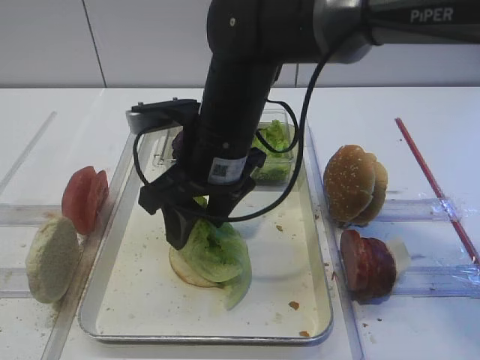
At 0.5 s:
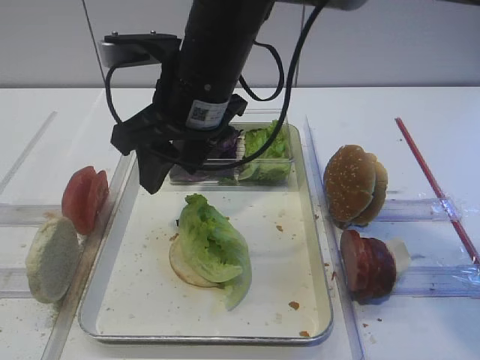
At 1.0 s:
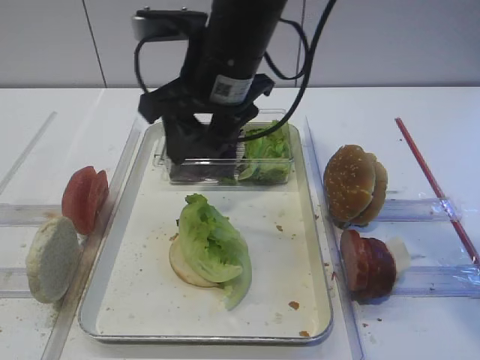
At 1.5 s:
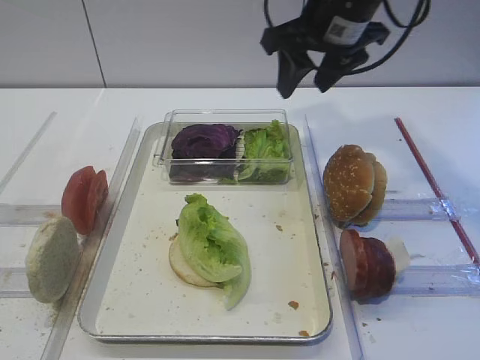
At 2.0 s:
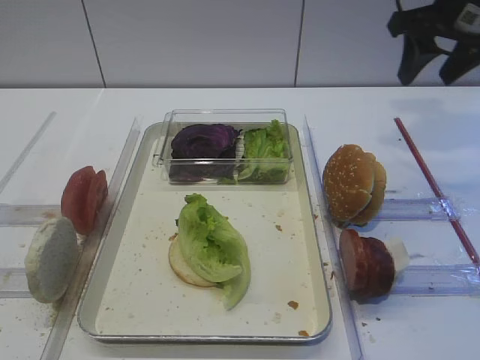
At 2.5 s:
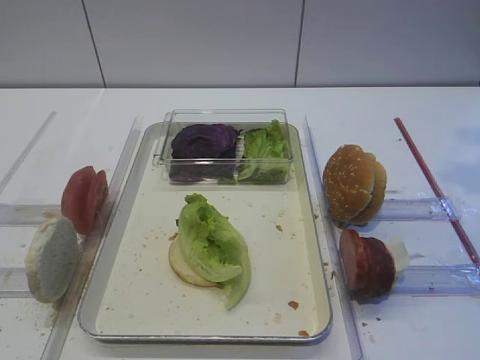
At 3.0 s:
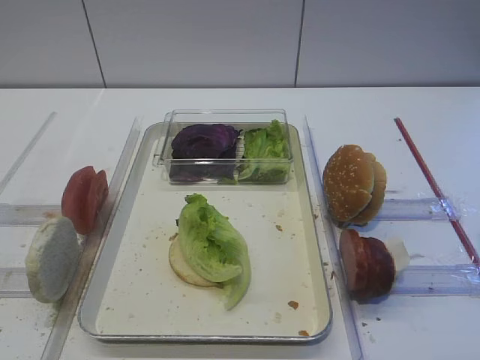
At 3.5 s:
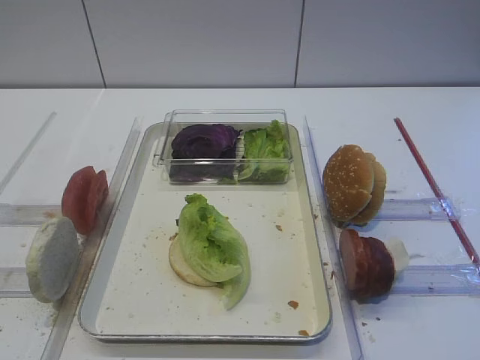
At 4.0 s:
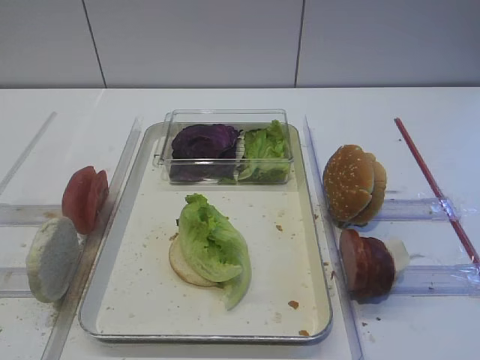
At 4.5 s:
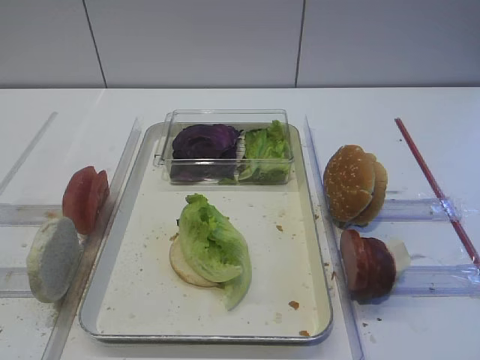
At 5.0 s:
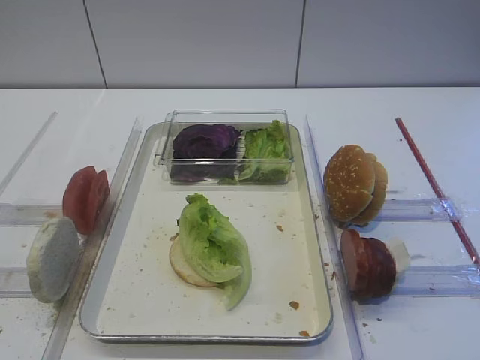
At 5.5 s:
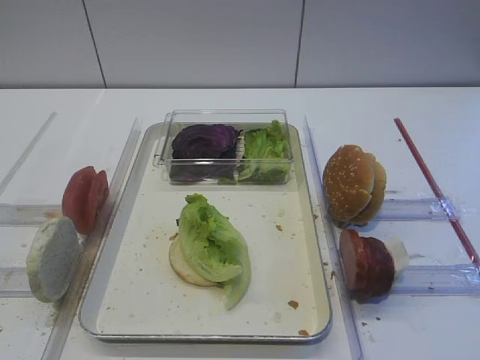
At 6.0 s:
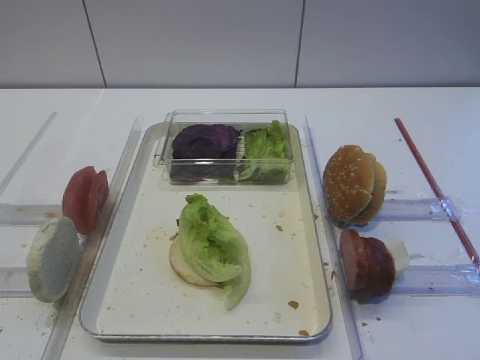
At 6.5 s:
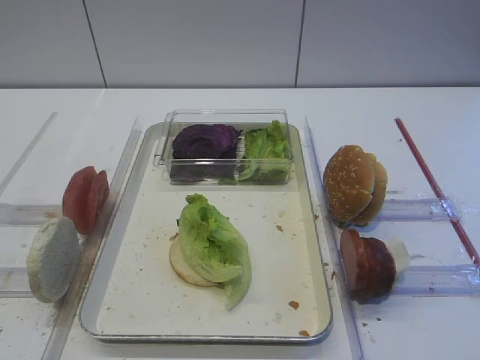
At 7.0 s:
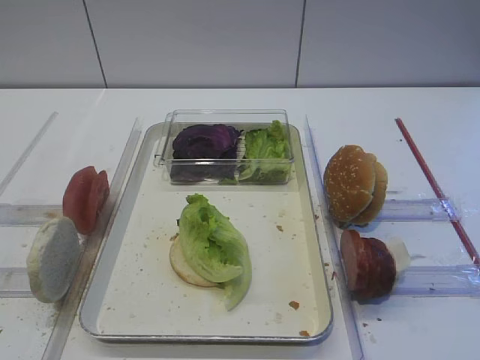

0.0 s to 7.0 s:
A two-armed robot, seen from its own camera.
0.0 to 2.0 s: The right gripper is displaced to the right and forward by roughly 30 cm.
2.0 to 3.5 s: The right gripper travels backward by approximately 35 cm.

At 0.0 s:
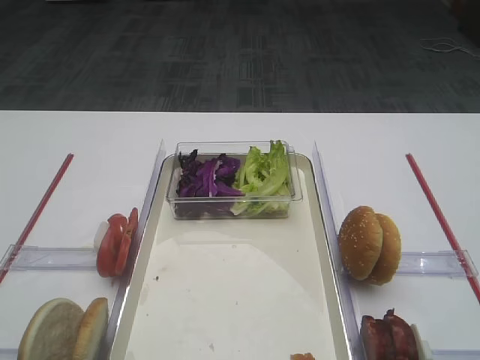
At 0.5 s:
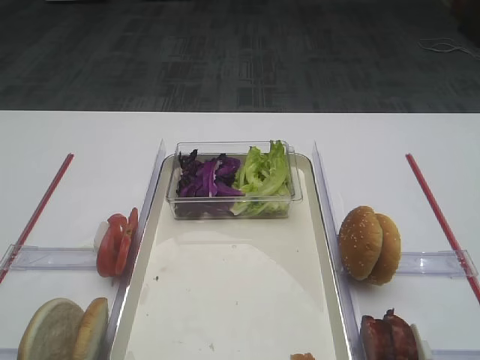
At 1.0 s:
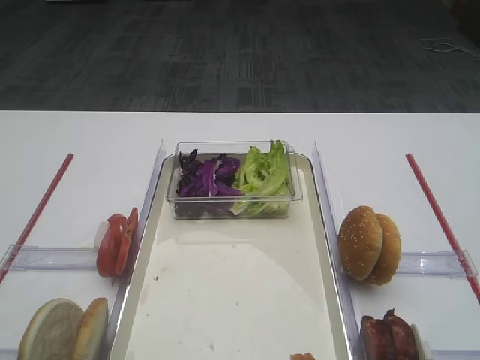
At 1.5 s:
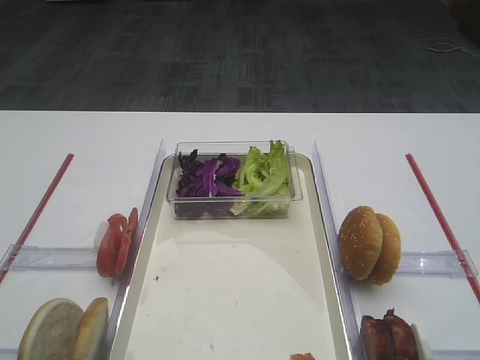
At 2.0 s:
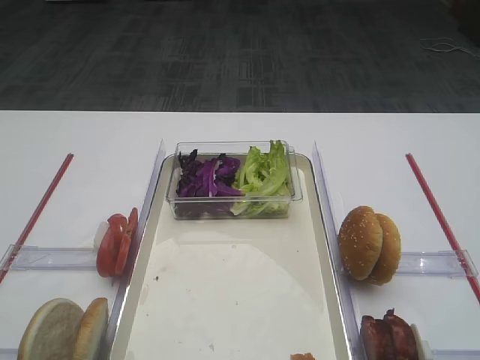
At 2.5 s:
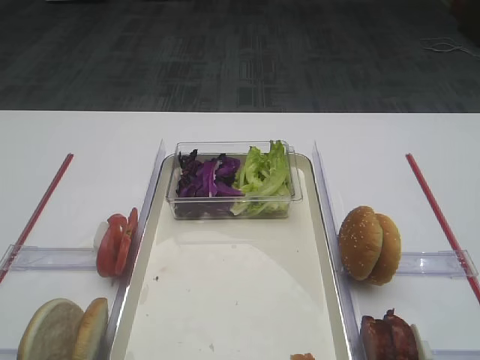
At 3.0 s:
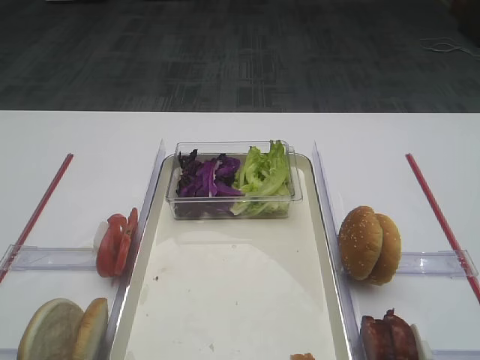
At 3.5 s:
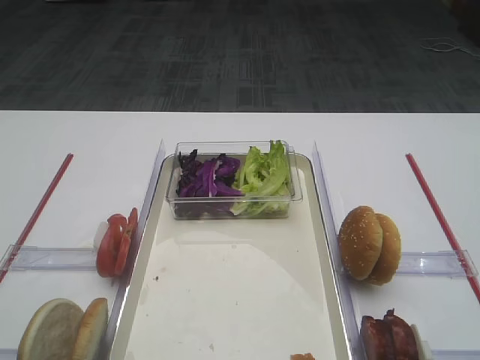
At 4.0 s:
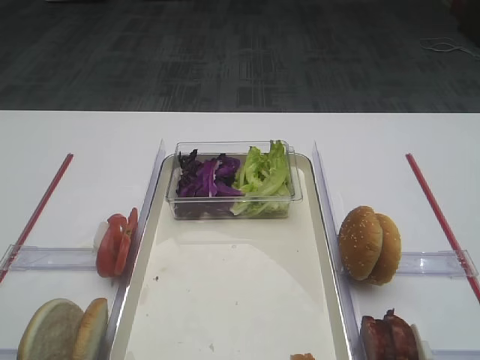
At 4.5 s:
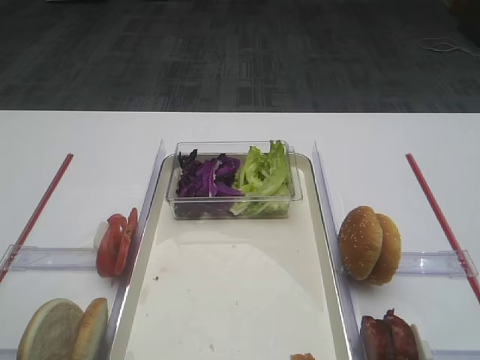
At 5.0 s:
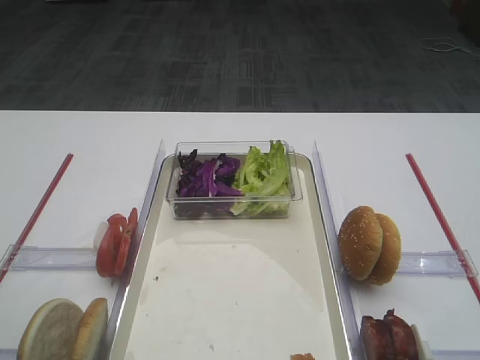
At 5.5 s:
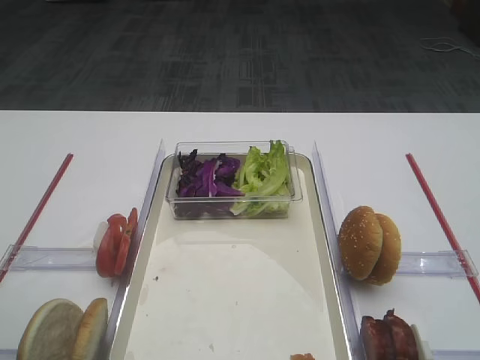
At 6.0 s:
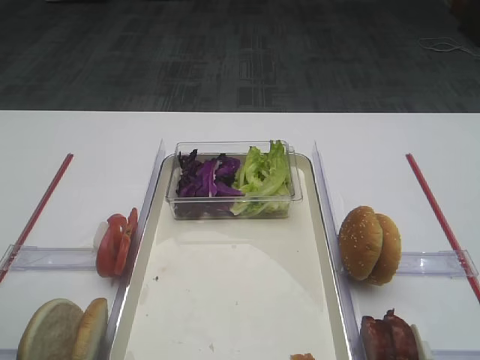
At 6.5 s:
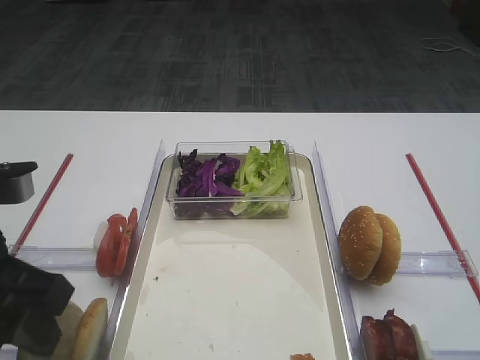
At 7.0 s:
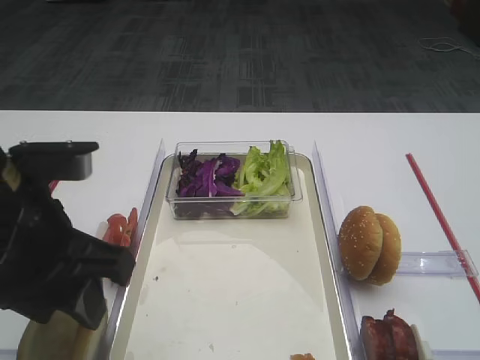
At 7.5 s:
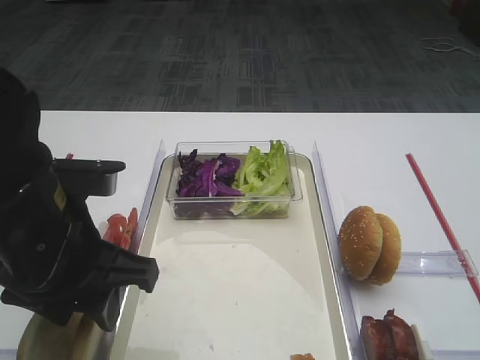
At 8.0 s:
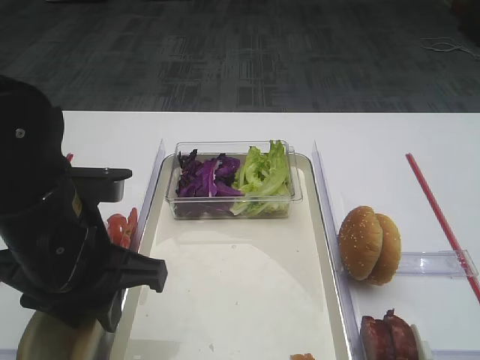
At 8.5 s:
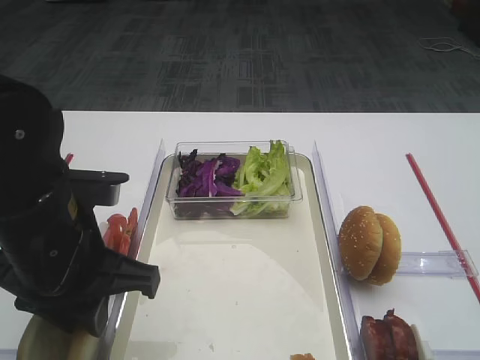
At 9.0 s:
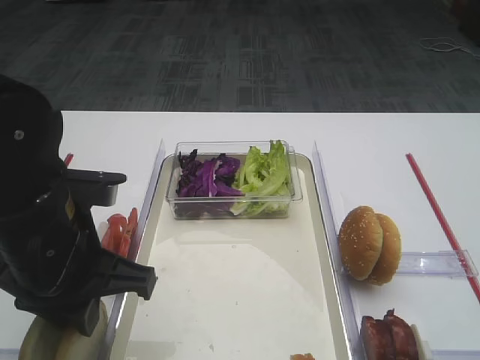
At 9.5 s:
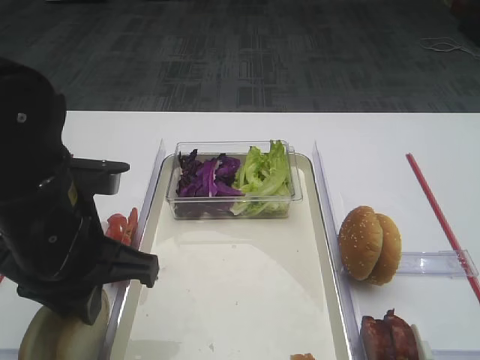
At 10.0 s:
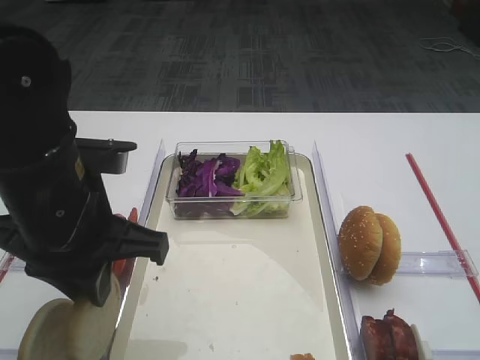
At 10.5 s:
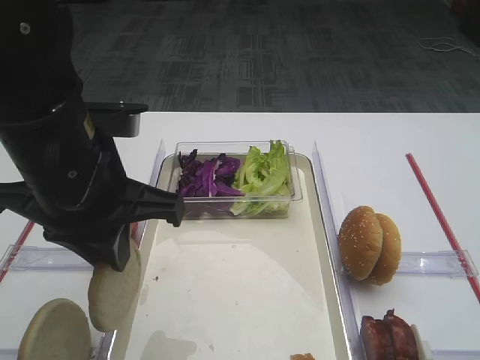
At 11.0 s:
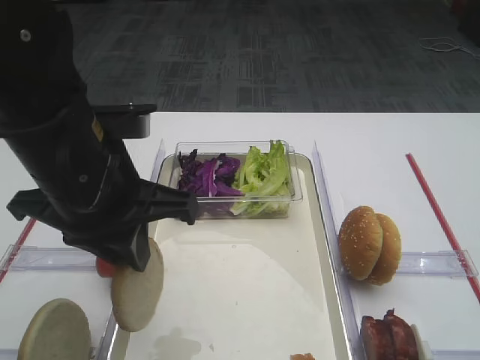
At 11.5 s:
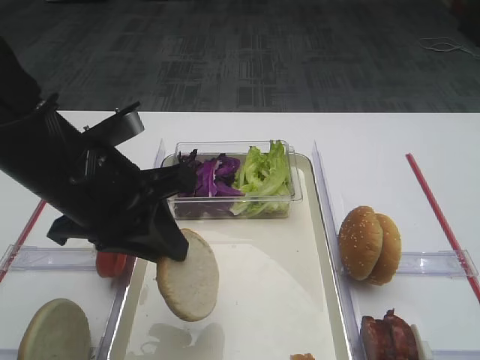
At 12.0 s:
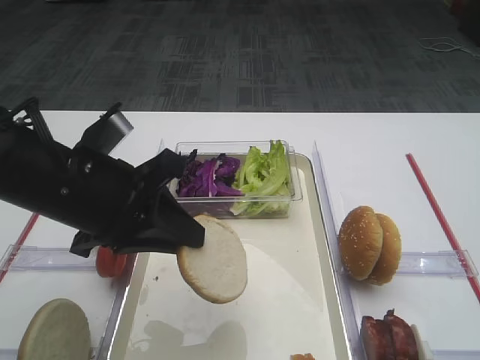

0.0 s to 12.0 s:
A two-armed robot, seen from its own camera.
Step, 0.0 to 10.0 s: Pick up the bread slice with the left gripper.
6.0 to 8.0 s: The left gripper travels to the right and forward by roughly 15 cm.
8.0 to 10.0 s: The left gripper closes up.

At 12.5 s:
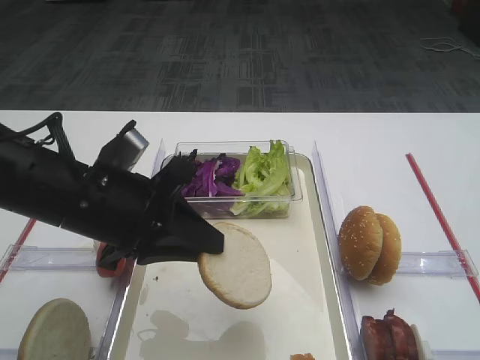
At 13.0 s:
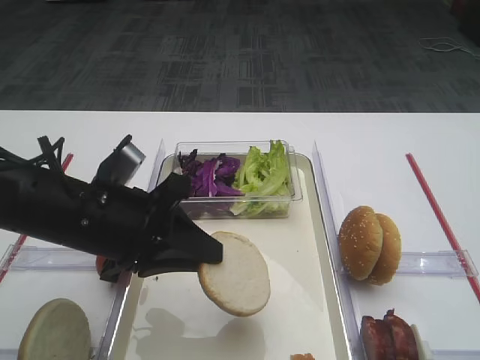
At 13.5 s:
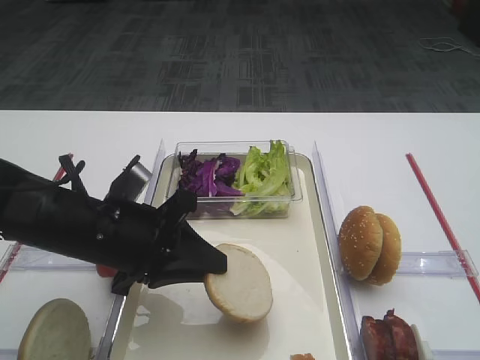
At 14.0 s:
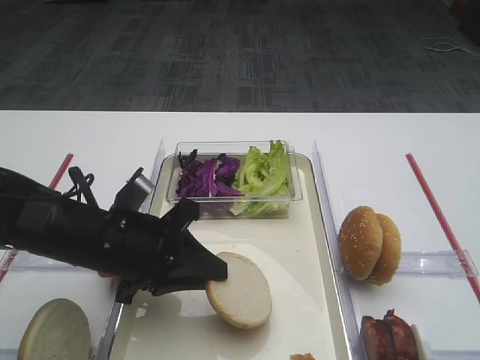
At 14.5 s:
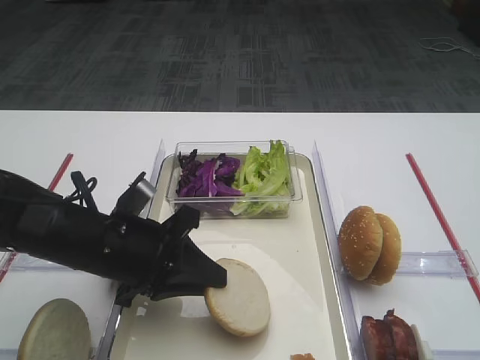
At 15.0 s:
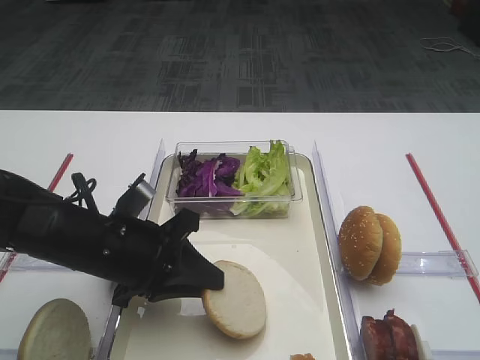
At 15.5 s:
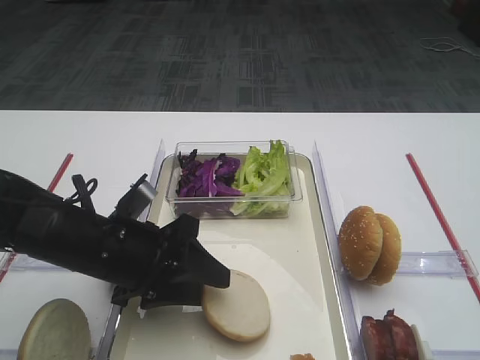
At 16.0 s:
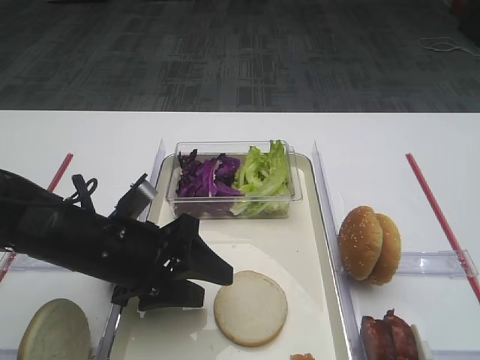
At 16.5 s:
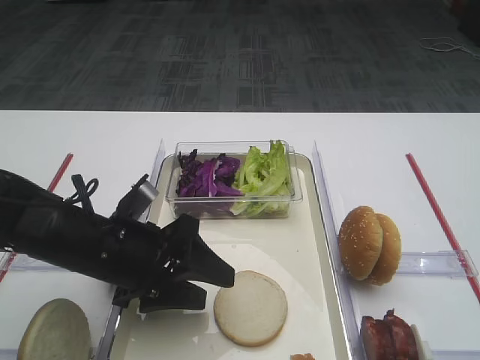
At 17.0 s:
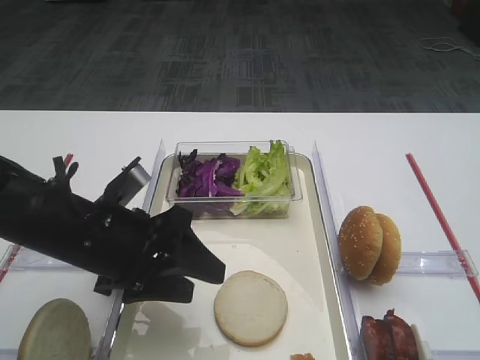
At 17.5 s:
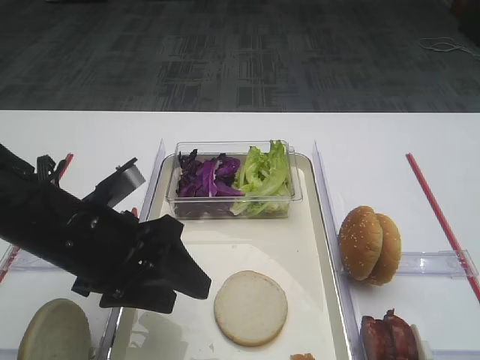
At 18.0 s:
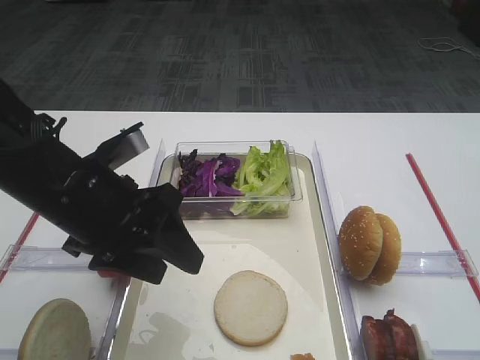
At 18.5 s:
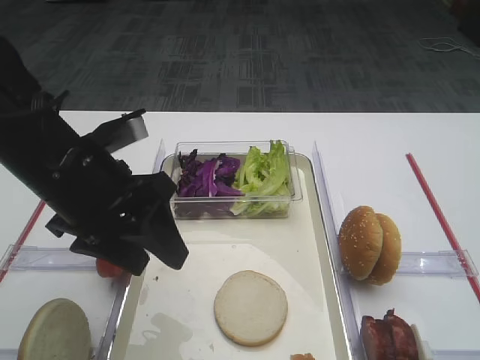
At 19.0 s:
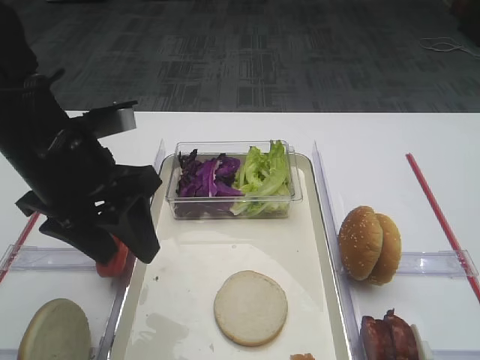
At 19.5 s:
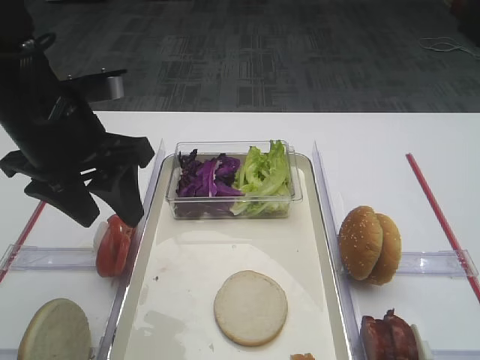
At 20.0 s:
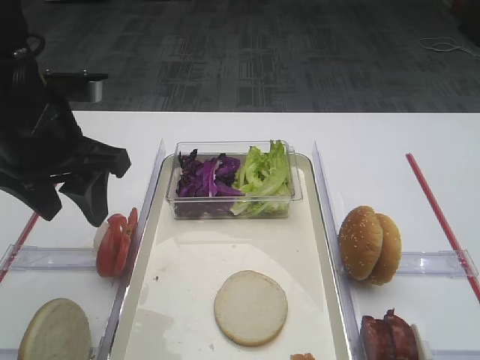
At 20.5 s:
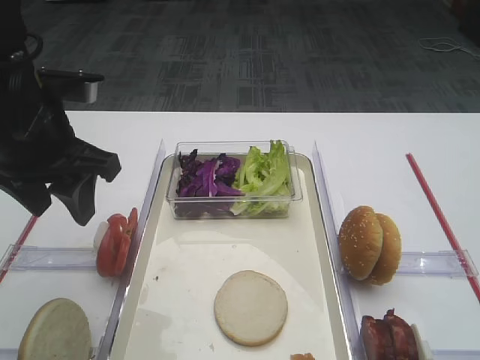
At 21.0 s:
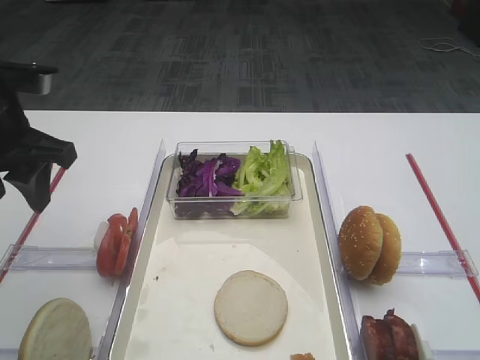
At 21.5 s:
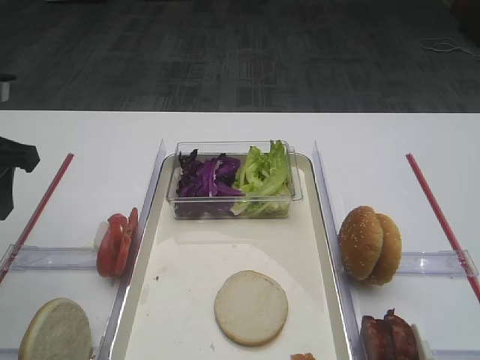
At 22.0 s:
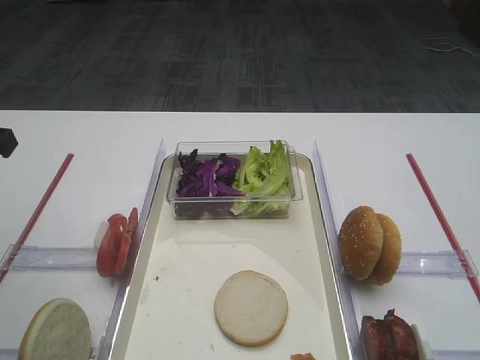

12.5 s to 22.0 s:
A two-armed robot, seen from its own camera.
Step, 12.5 to 17.0 s: Place the bread slice on the tray with the left gripper.
12.5 to 14.5 s: The left gripper travels downward by approximately 5 cm.
14.5 to 16.5 s: The left gripper opens up.
16.5 to 18.0 s: The left gripper goes approximately 10 cm upward.
18.0 to 20.0 s: The left gripper moves upward, roughly 5 cm.
20.0 to 22.0 s: The left gripper is displaced to the left by some 10 cm.
